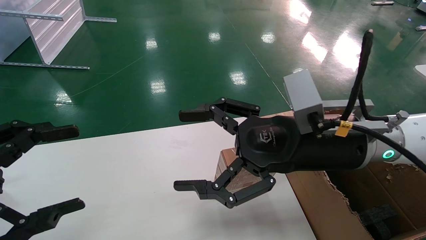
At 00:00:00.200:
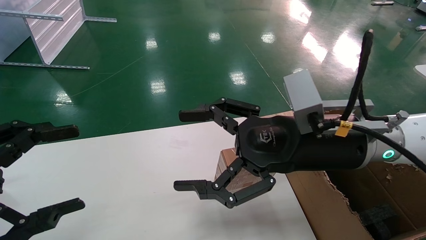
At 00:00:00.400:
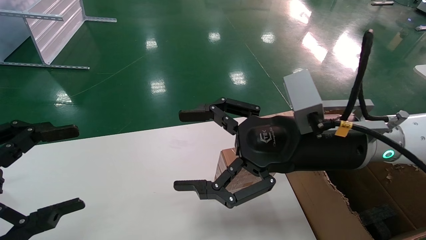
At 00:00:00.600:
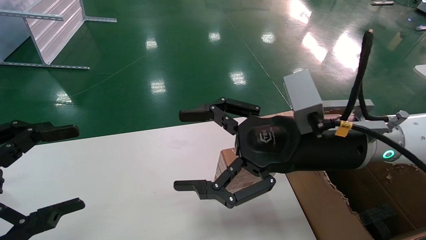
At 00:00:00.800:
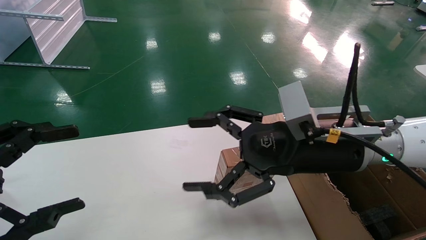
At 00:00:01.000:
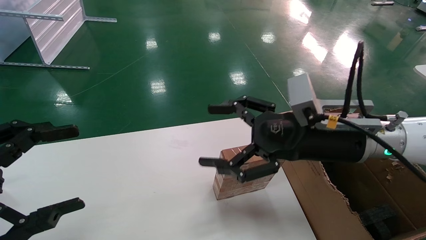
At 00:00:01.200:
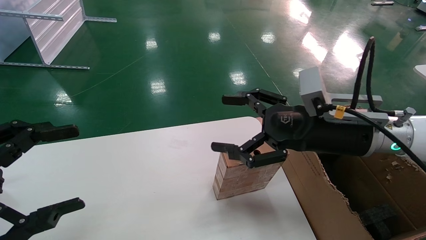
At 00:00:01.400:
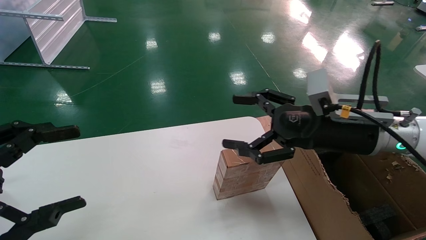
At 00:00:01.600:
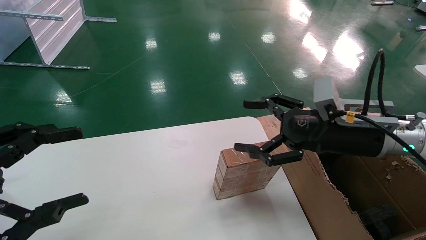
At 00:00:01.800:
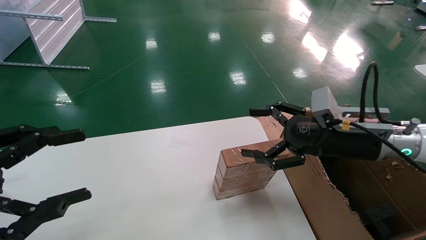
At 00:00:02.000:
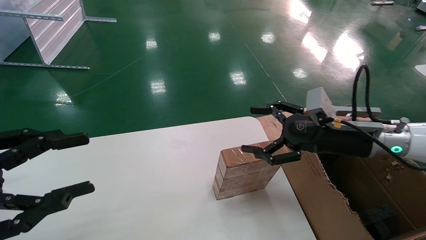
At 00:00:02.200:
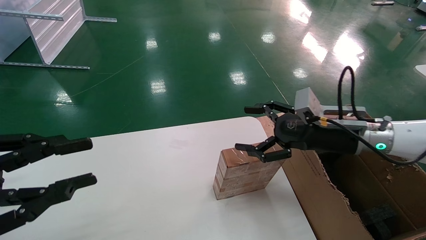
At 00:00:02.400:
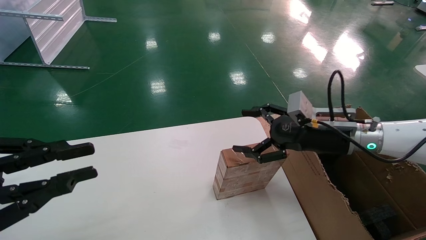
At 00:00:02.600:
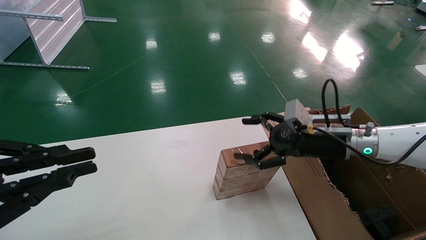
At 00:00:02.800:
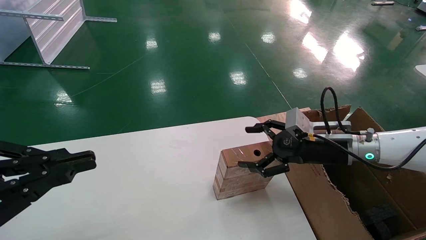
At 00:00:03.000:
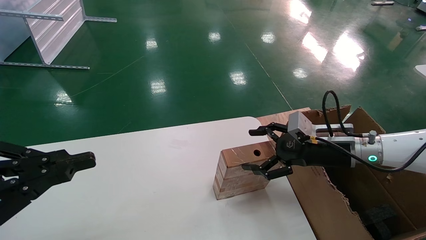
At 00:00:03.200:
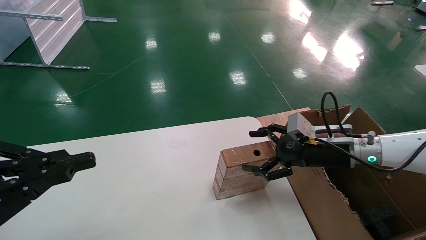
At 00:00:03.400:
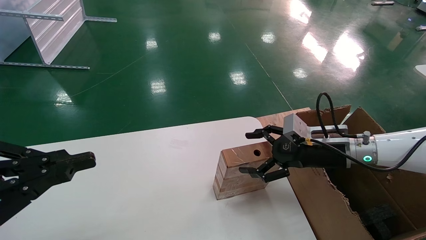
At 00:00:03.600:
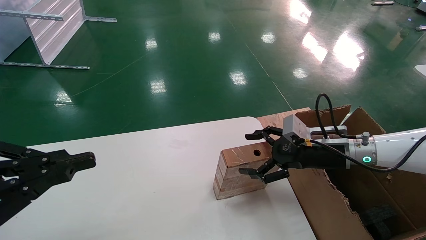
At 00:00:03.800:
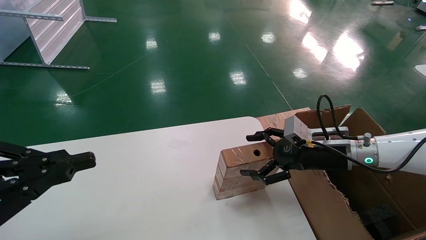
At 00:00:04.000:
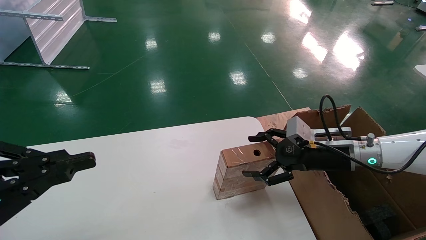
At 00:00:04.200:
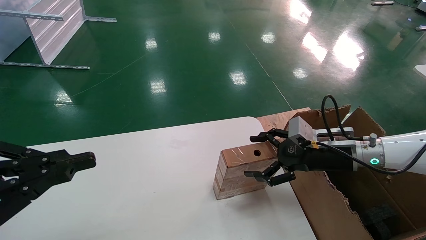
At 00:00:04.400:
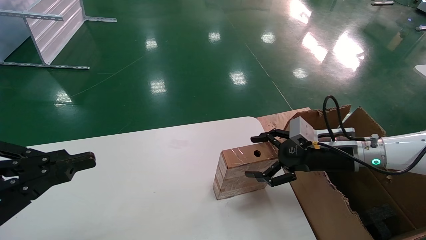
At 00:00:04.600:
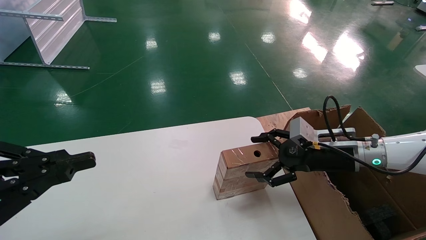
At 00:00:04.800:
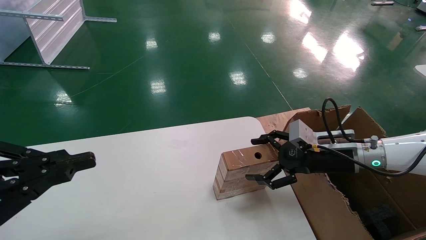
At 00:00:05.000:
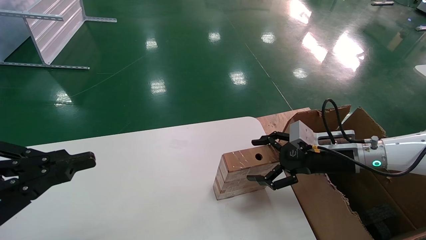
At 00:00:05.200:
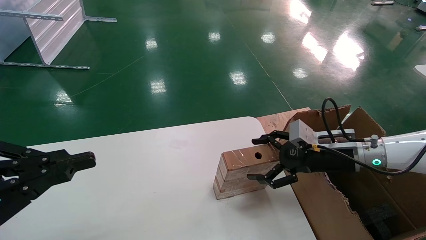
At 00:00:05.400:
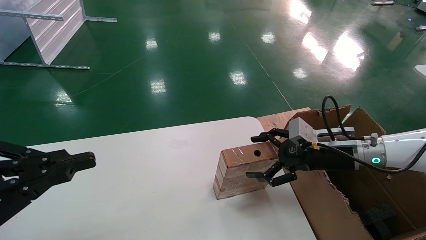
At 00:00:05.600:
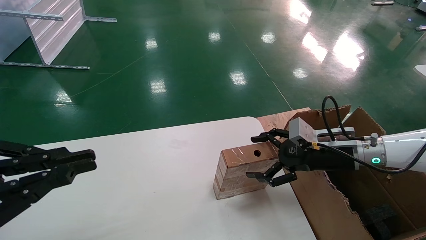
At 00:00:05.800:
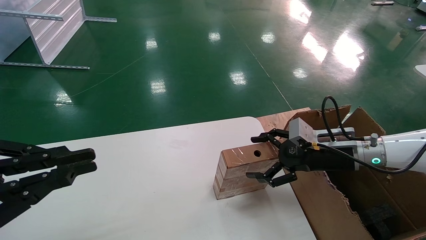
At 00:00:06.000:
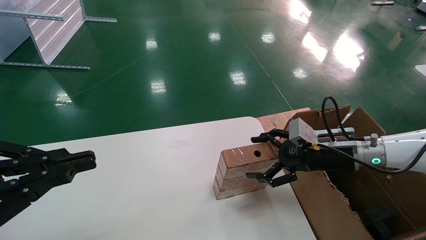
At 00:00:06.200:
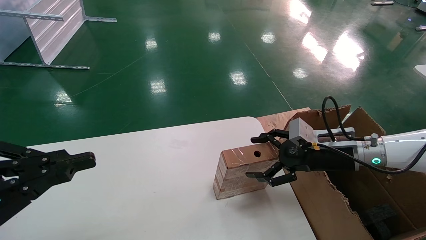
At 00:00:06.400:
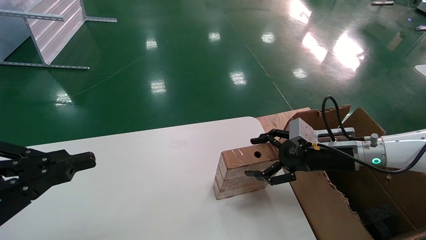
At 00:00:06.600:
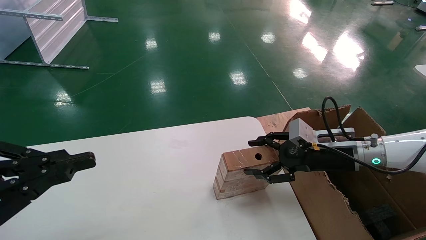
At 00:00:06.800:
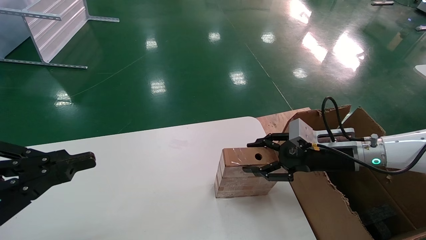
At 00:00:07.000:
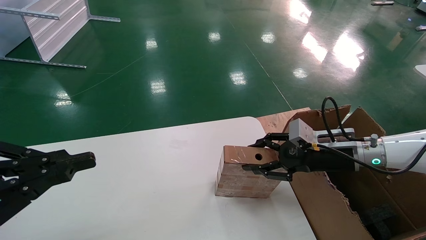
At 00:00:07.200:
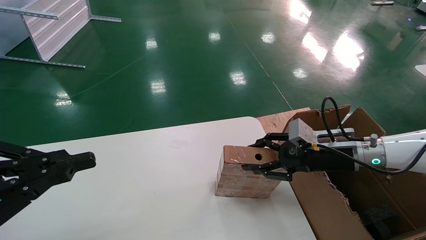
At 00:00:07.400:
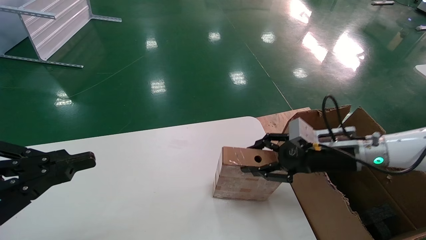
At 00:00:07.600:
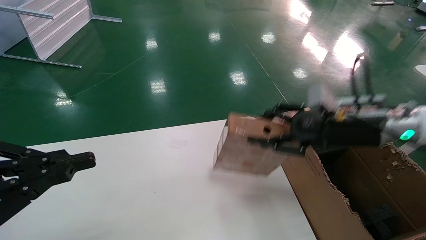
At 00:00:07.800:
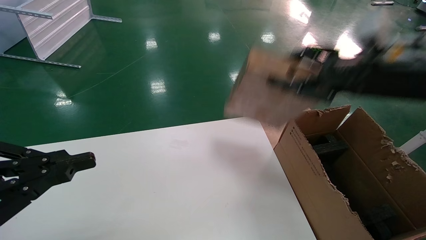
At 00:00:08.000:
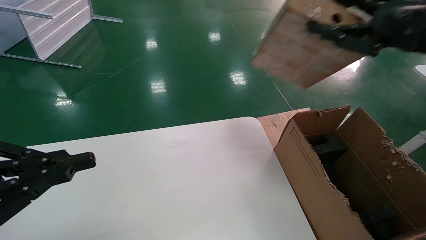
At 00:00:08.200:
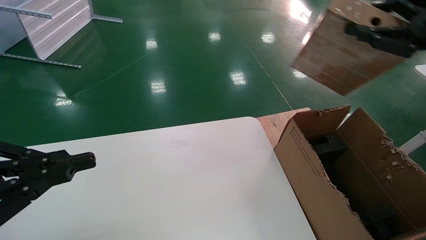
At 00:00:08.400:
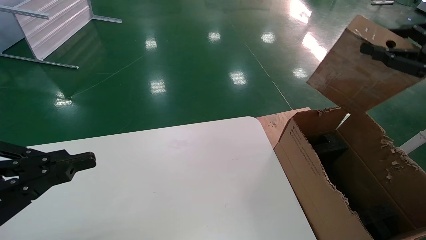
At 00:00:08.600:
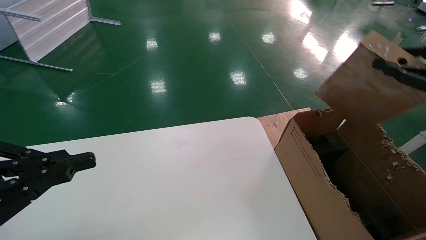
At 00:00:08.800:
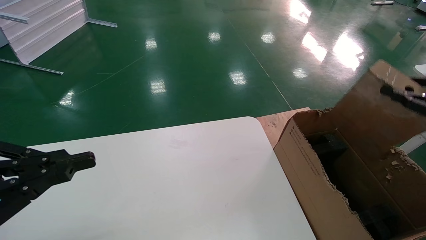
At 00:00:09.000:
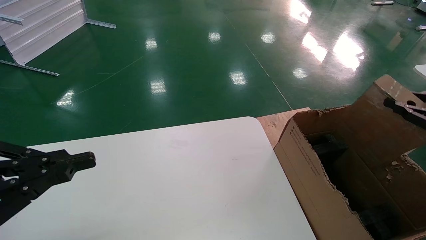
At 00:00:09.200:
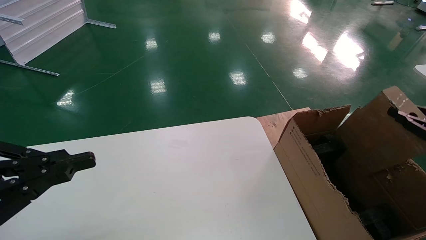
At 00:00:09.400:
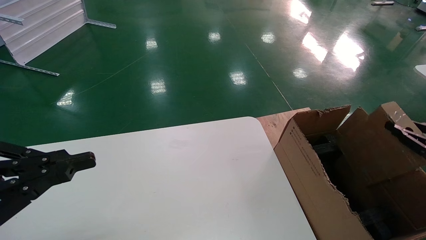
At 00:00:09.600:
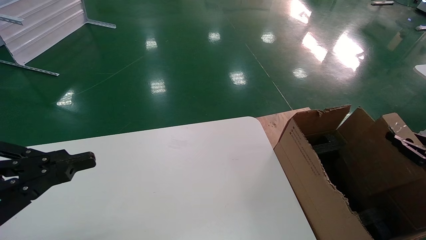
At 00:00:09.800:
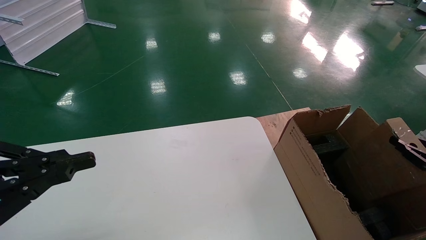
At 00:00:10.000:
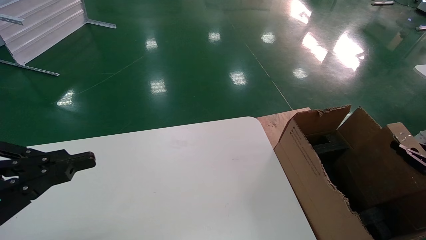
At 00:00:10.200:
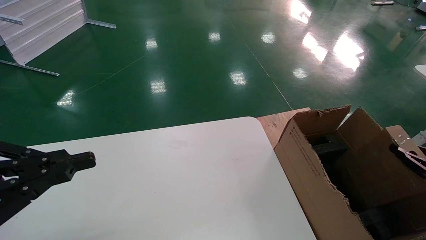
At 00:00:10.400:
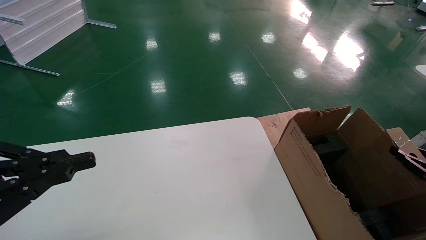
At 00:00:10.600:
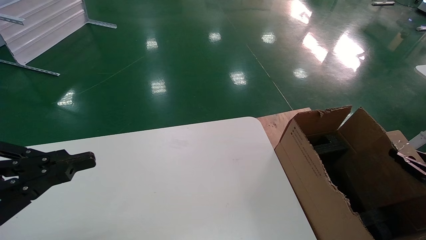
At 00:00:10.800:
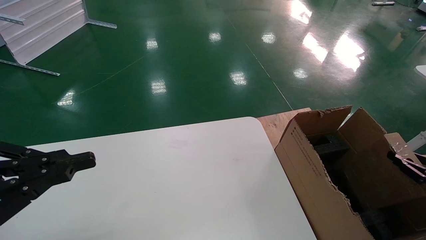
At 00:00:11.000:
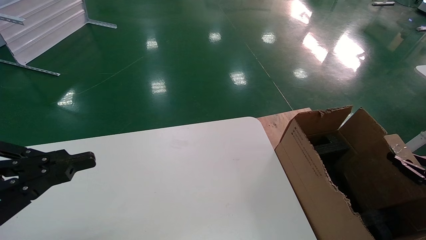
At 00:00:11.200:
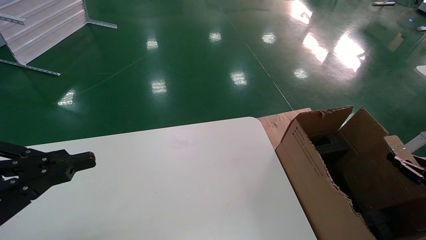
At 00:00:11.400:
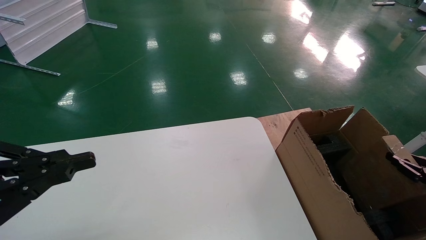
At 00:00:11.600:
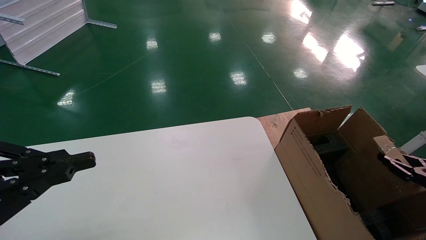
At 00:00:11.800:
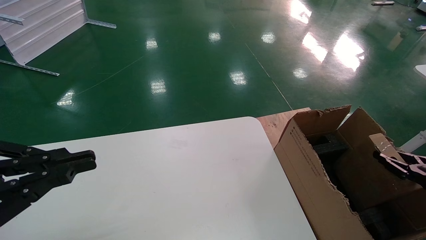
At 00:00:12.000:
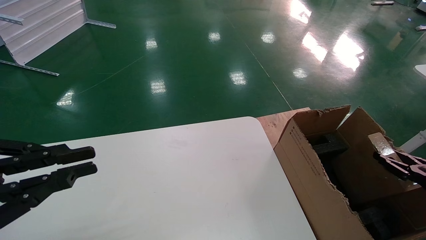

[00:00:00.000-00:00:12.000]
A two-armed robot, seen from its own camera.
Task of the whole recording: put the box on the table into the big box.
Step, 00:00:01.200 to 00:00:07.200: Pick up the mouse and the power cord paper box.
00:00:00.000 to 00:00:01.600: The right gripper shifts about 10 cm to the right.
00:00:01.600 to 00:00:03.000: The right gripper is displaced downward and forward by about 10 cm. Meanwhile the left gripper closes its fingers.
00:00:03.000 to 00:00:04.400: Both grippers stay put.
00:00:04.400 to 00:00:06.000: The two grippers keep their place.
00:00:06.000 to 00:00:07.600: The right gripper shifts roughly 10 cm upward, and closes up.
00:00:07.600 to 00:00:09.000: The right gripper moves to the right and backward, approximately 25 cm.
00:00:09.000 to 00:00:10.400: The right gripper is displaced downward by about 15 cm.
00:00:10.400 to 00:00:12.000: The grippers move only a little.

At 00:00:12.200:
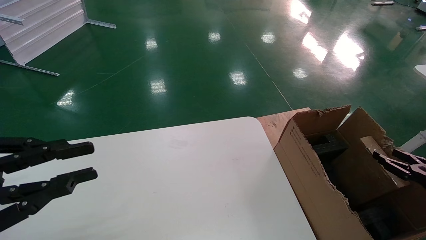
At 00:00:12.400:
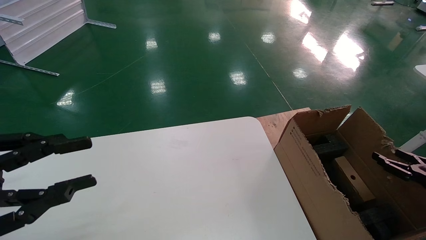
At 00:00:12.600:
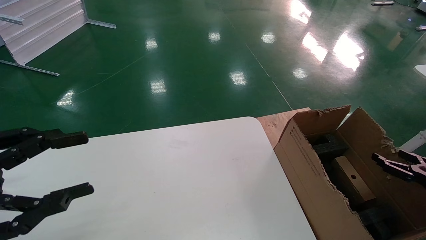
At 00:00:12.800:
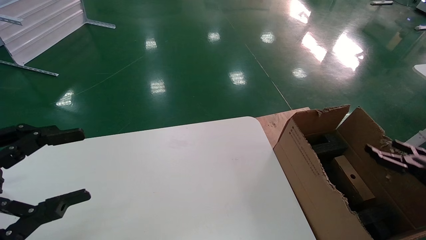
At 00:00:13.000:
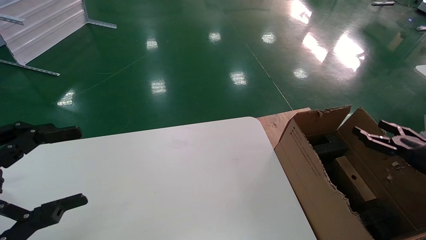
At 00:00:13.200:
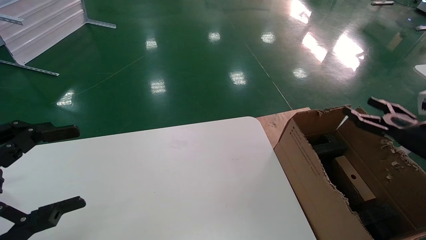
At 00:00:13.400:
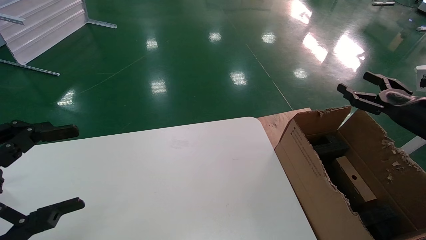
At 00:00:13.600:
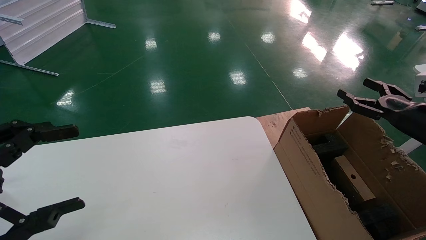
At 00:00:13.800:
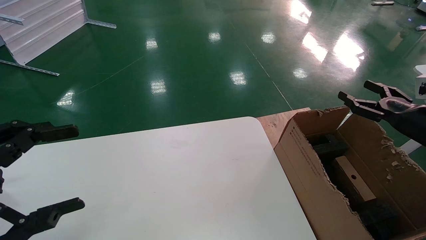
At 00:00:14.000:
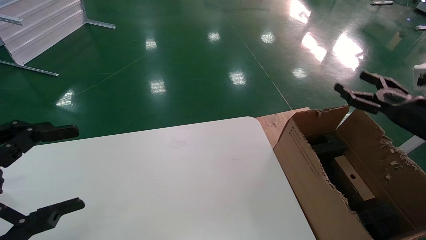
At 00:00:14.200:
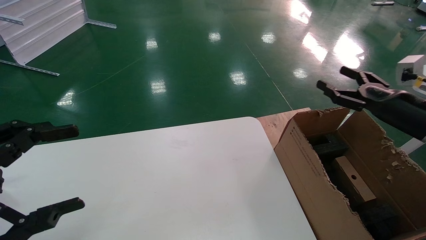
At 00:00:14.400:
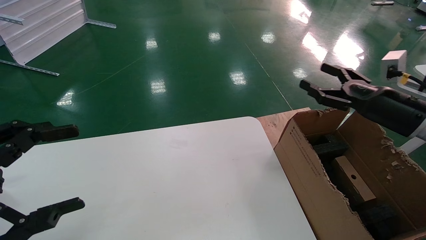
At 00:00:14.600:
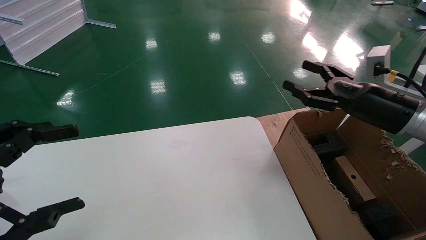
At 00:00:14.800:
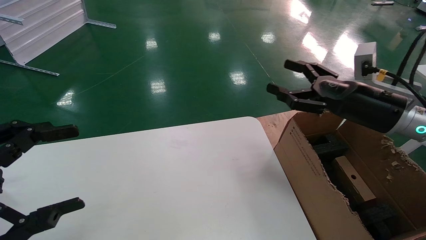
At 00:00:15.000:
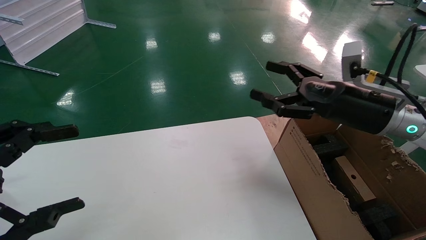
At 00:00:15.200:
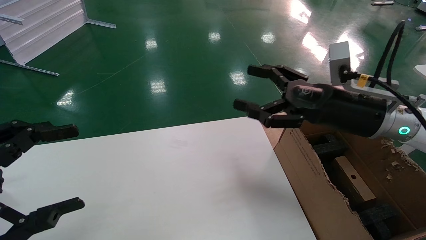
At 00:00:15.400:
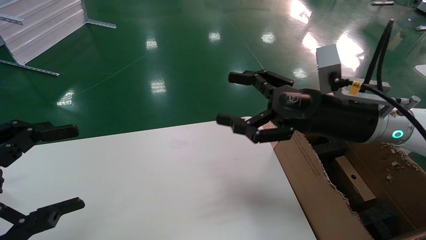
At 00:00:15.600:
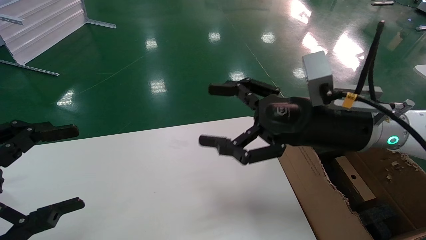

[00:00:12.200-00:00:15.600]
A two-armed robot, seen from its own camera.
Task of the whole recording: put the box on the table into the big box.
00:00:12.200 to 00:00:13.800: The right gripper moves upward, forward and to the left, about 15 cm, and opens its fingers. The left gripper opens its fingers.
00:00:13.800 to 00:00:15.600: The right gripper heads to the left, covering about 25 cm.
